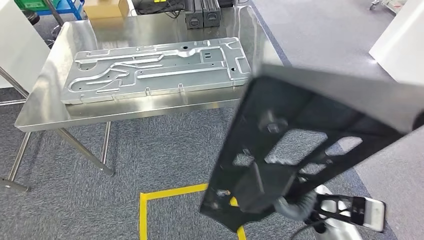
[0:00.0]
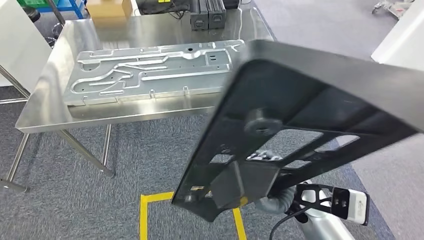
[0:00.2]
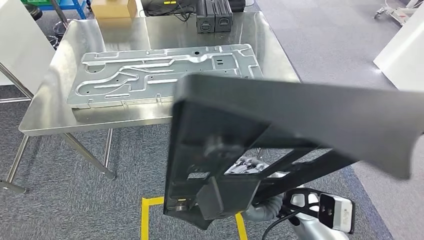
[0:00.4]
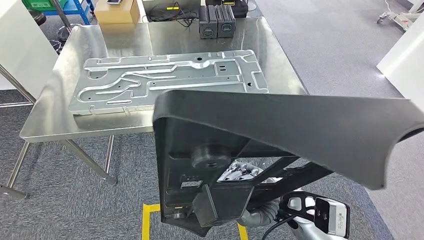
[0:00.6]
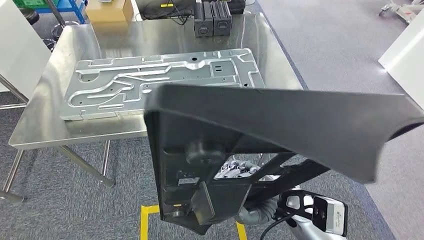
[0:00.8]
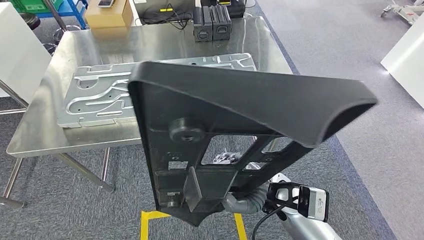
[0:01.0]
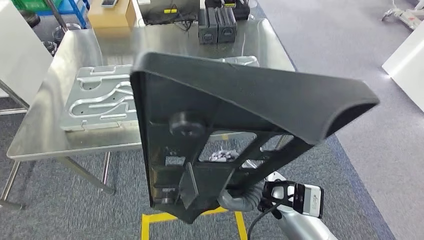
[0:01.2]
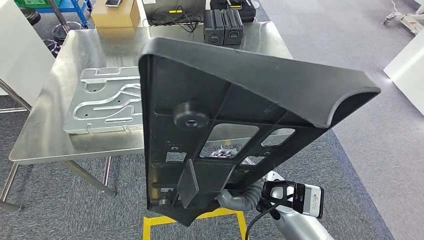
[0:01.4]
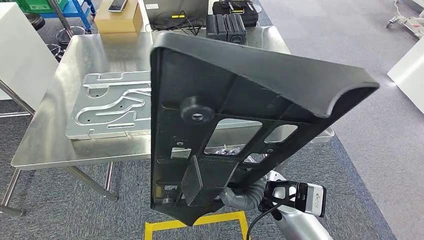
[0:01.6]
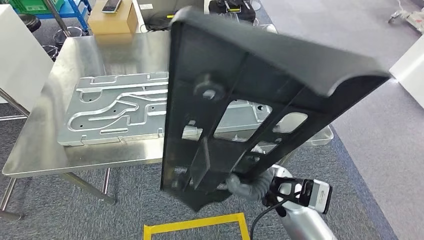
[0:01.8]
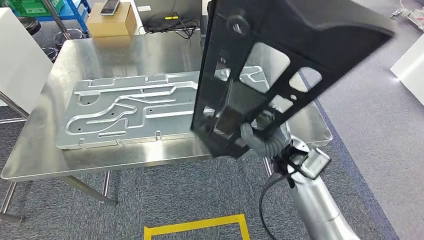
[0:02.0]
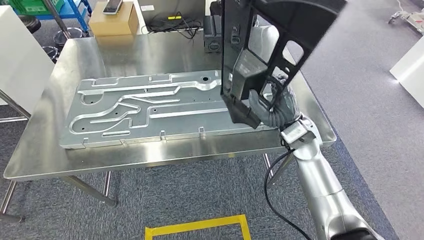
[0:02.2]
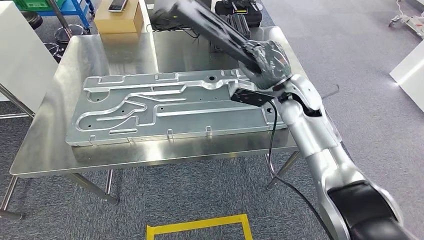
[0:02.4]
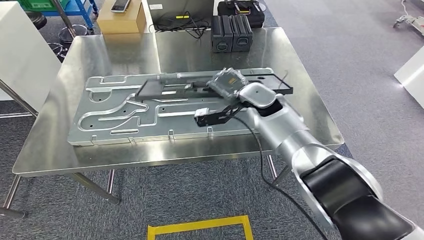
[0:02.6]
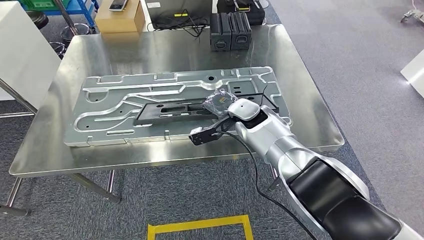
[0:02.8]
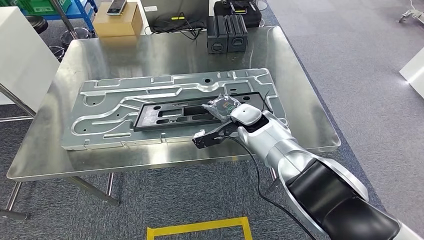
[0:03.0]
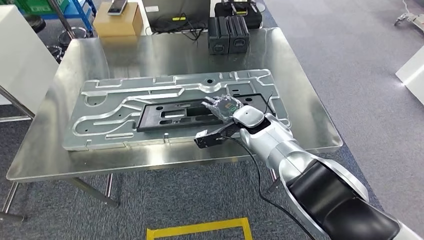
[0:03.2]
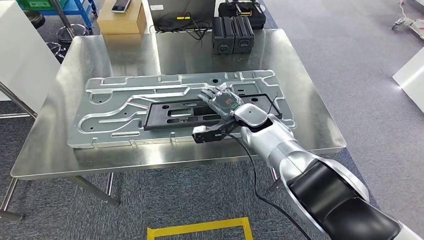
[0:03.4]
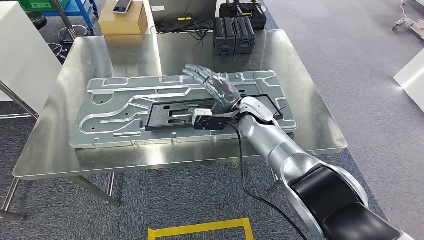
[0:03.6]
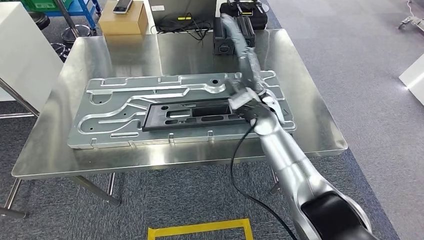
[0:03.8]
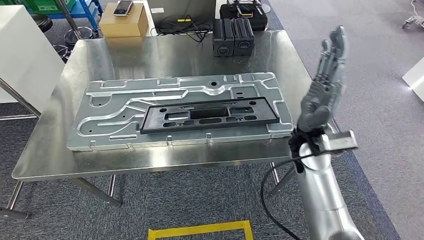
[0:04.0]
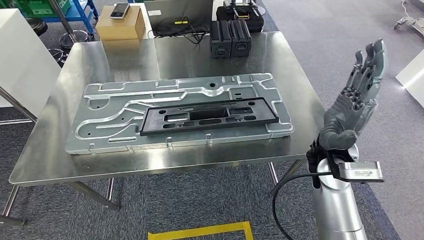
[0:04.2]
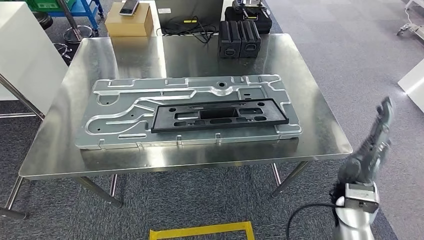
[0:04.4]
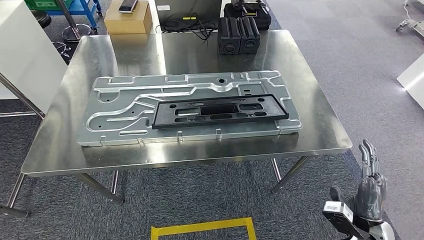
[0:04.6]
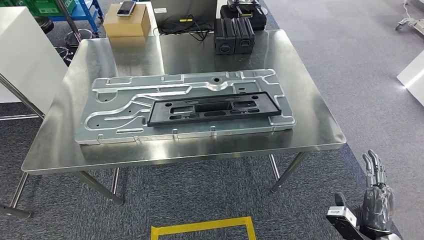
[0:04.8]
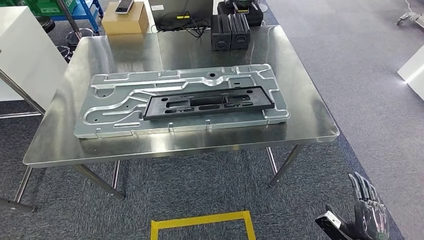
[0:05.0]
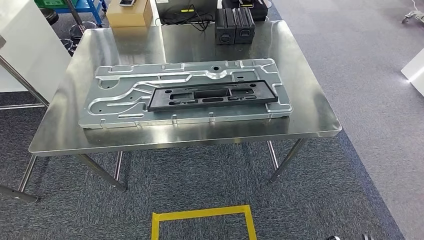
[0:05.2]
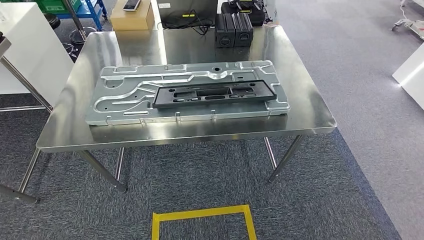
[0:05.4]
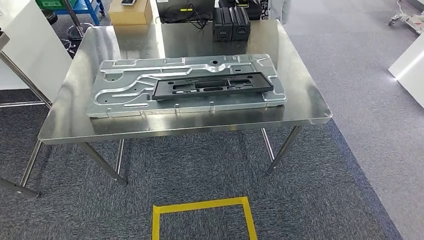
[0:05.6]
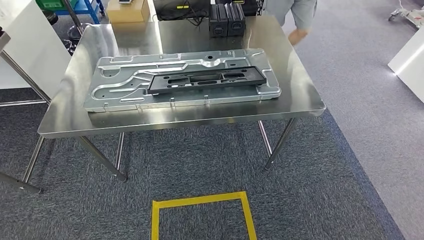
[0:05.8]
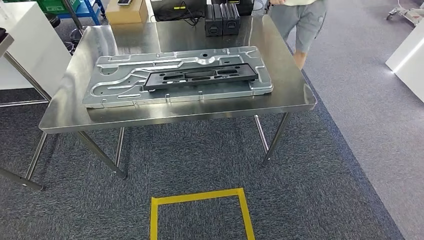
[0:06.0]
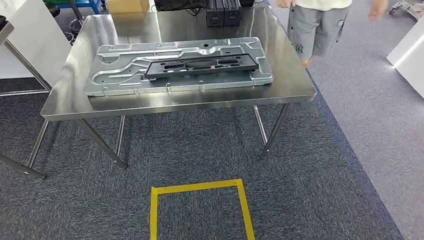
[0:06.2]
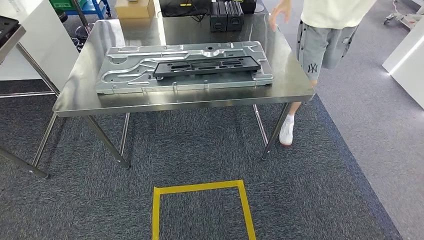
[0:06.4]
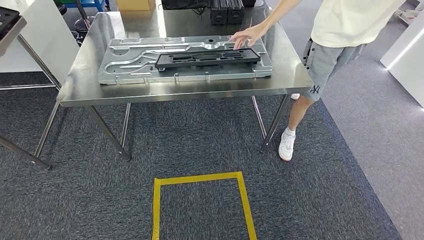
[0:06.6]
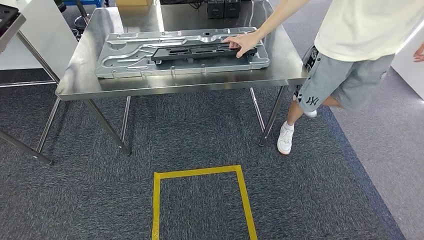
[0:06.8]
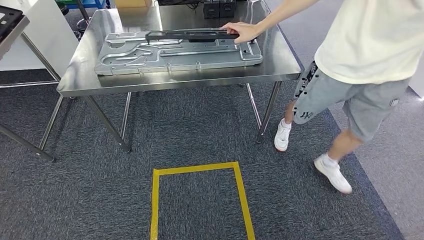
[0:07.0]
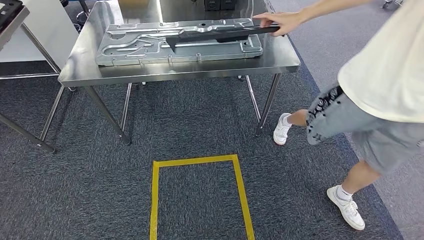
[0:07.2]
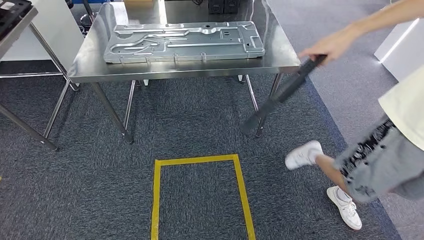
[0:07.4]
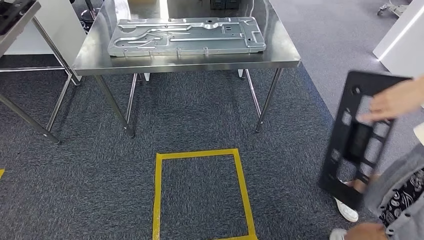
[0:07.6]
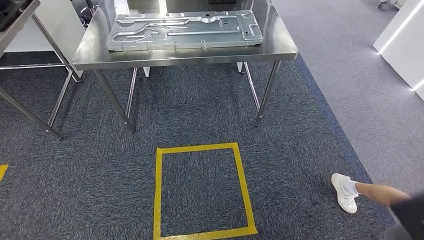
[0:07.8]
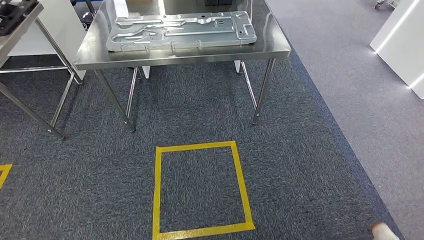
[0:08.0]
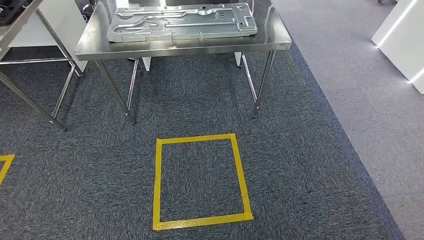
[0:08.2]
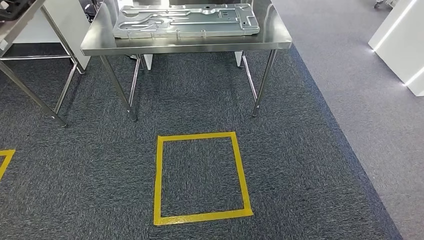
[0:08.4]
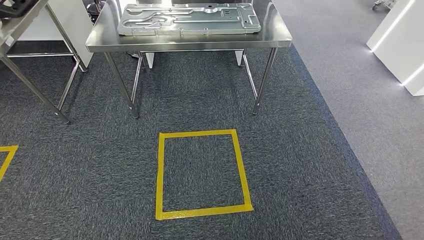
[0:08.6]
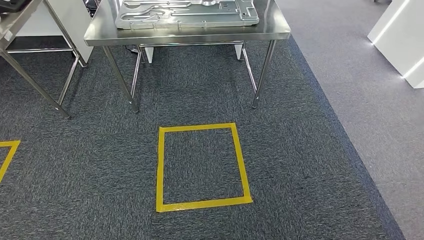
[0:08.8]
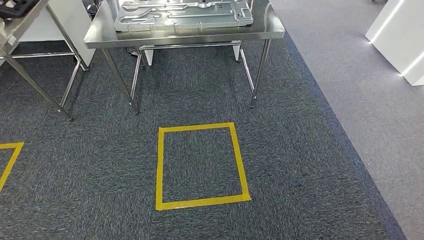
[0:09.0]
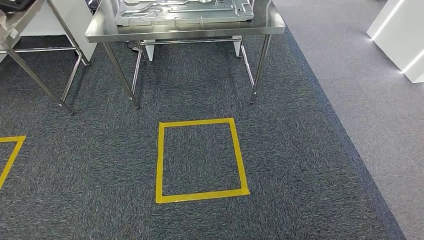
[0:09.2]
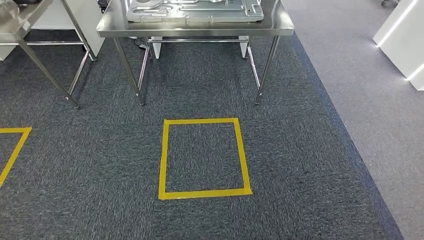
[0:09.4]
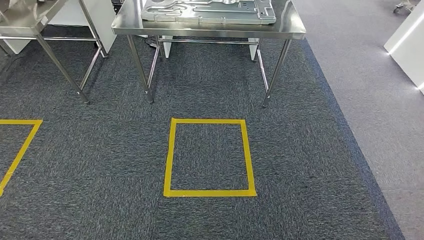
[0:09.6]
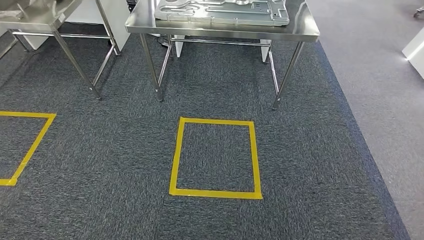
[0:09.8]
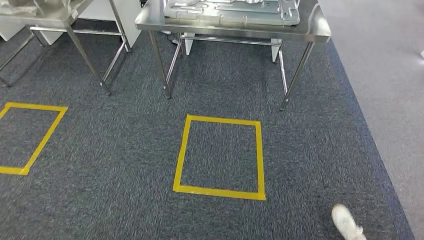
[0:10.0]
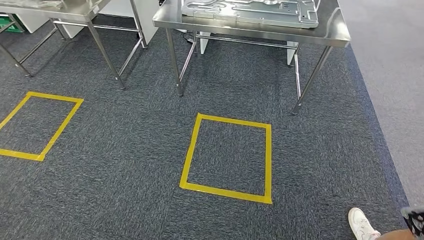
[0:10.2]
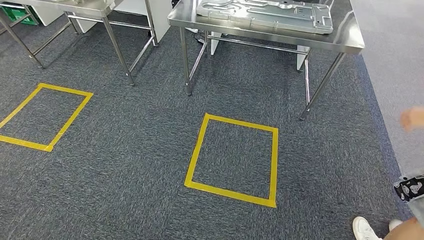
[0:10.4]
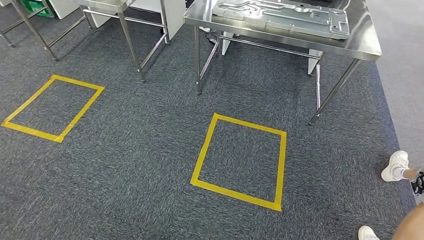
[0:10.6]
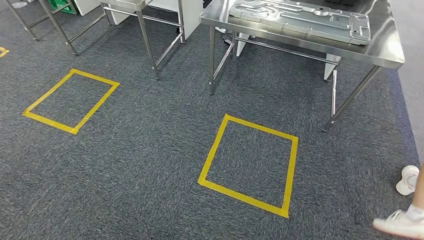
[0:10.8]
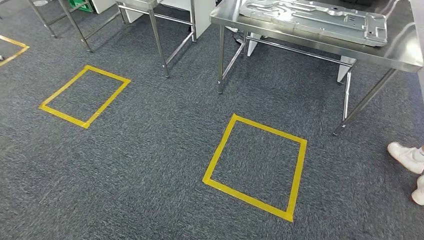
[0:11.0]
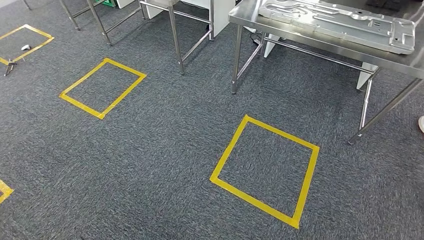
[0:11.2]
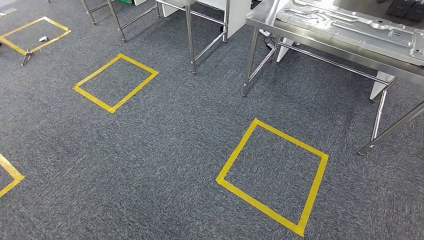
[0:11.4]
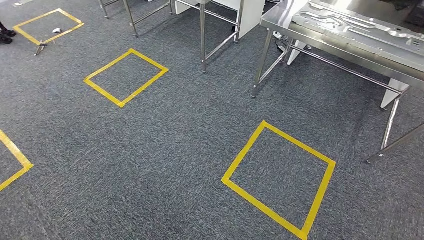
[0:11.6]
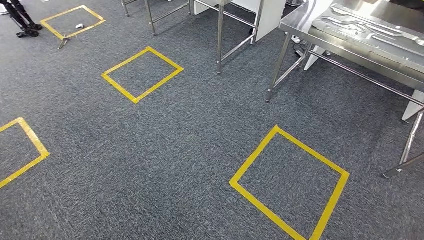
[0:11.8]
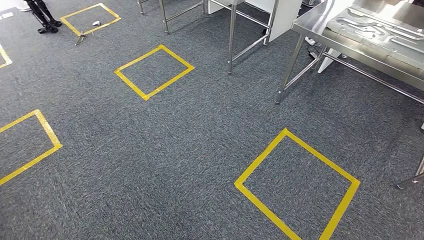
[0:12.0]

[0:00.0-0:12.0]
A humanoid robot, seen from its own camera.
Step, 0:04.0 to 0:06.8: Insert the large material into the corresponding slot on the workbench.

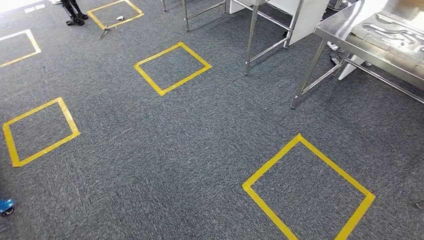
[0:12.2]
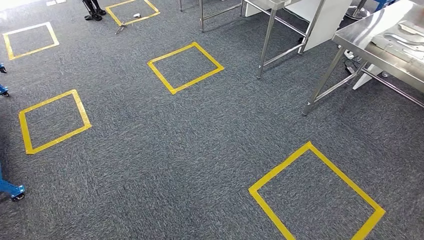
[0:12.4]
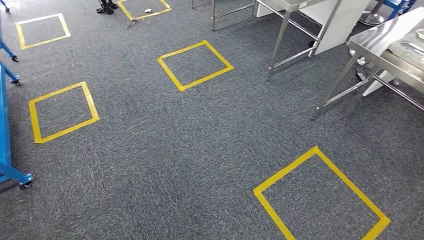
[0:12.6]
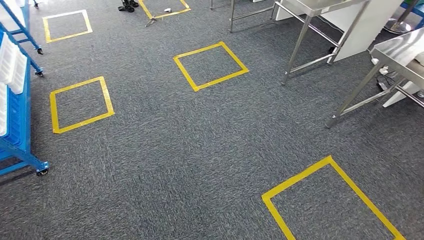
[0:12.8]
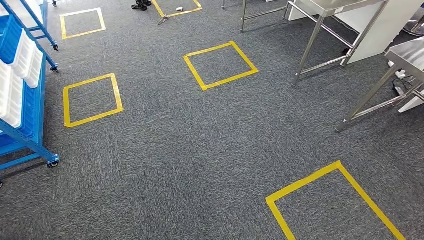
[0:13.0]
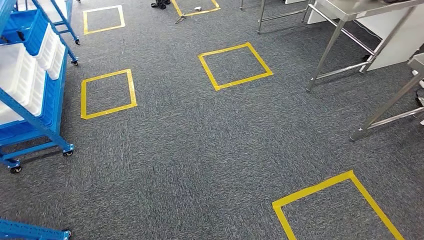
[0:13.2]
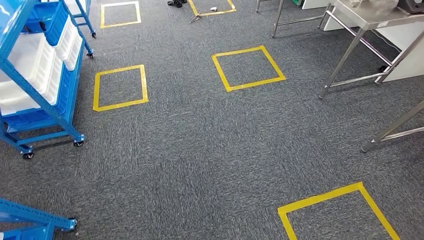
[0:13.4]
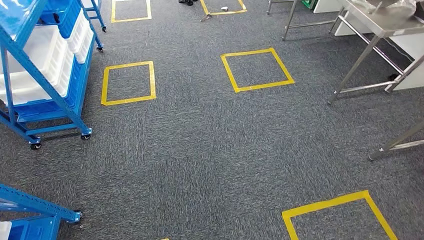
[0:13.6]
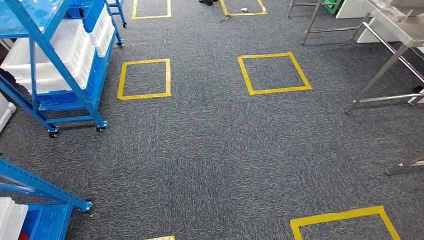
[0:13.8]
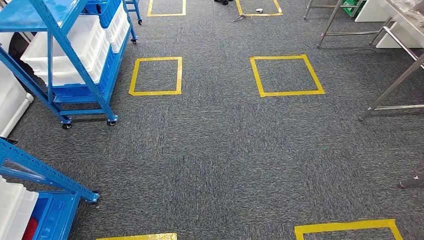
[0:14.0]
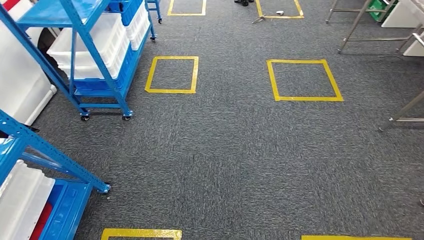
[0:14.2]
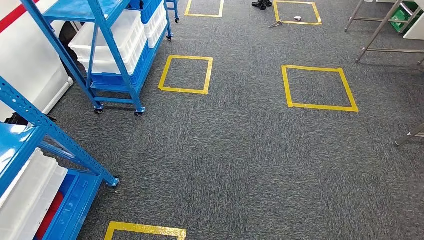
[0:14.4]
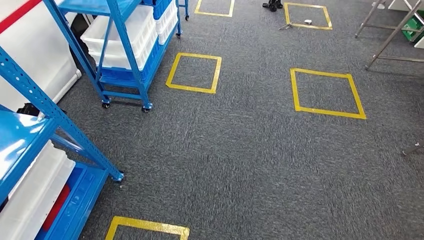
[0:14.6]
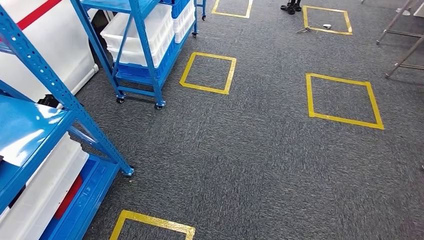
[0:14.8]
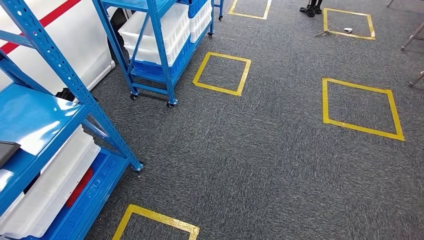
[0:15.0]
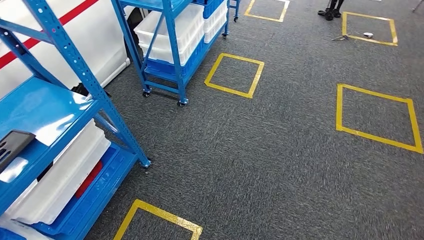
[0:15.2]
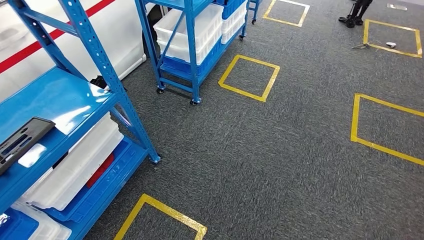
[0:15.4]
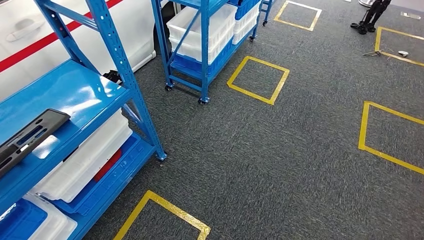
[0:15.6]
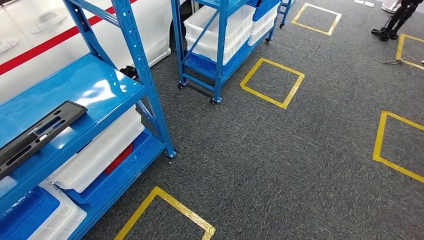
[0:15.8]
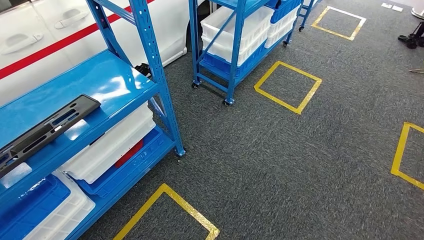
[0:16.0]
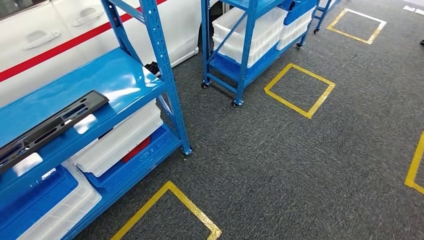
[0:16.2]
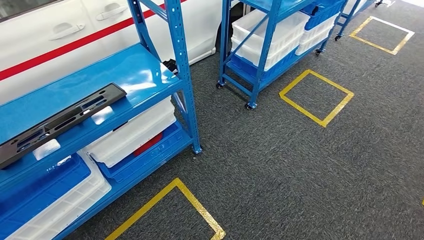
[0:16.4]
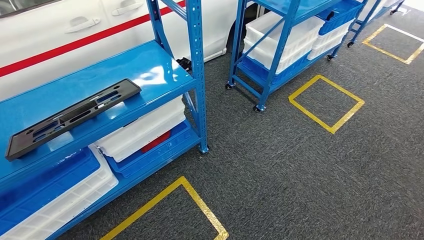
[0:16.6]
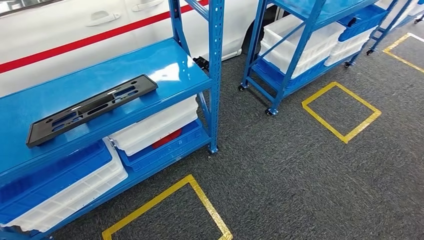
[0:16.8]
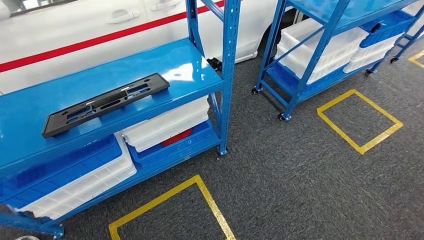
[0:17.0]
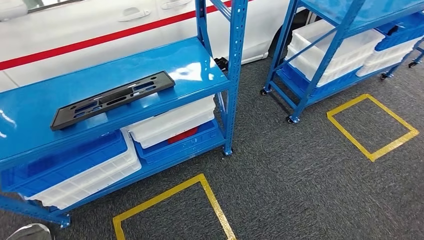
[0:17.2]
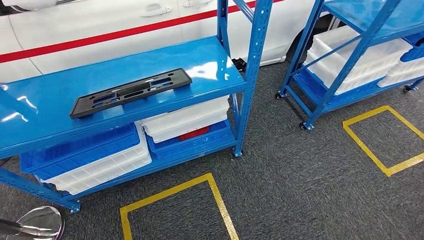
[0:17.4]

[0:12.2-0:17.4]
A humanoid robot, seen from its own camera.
Step, 0:12.2 to 0:17.4: Move to the initial position of the shelf.
